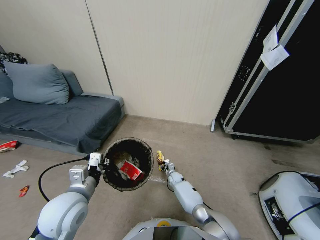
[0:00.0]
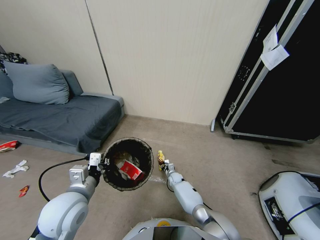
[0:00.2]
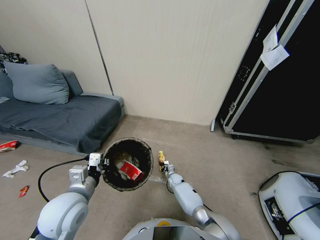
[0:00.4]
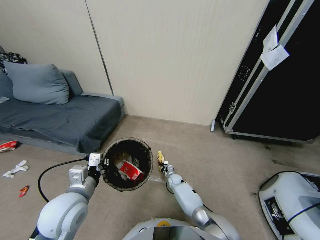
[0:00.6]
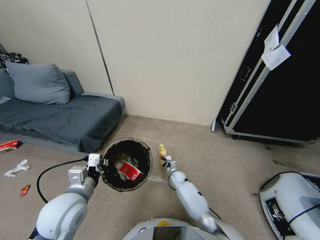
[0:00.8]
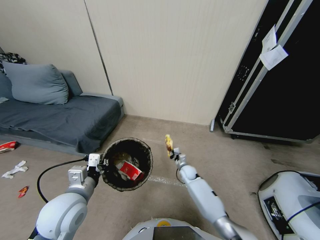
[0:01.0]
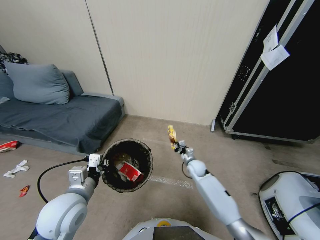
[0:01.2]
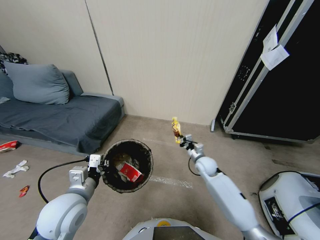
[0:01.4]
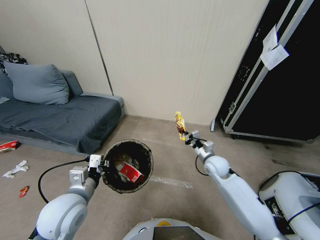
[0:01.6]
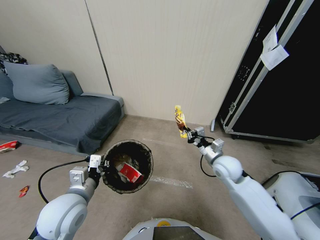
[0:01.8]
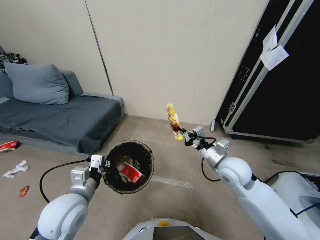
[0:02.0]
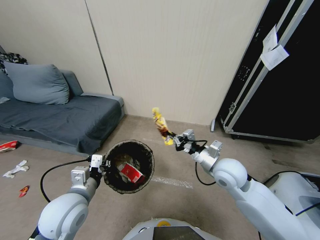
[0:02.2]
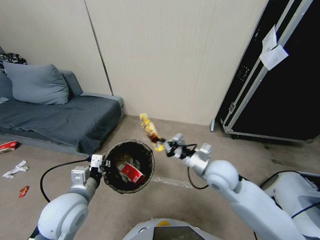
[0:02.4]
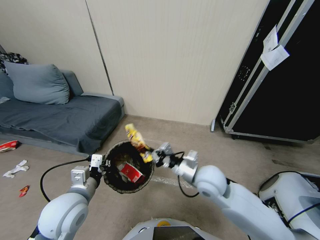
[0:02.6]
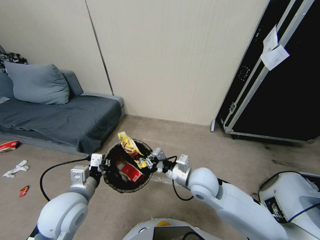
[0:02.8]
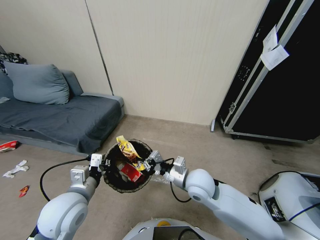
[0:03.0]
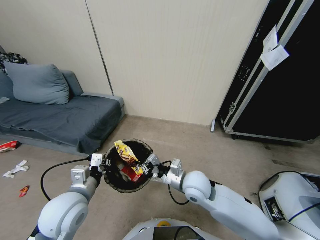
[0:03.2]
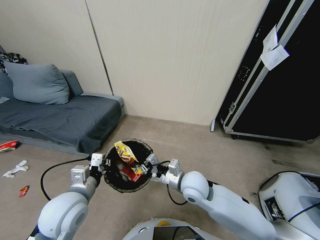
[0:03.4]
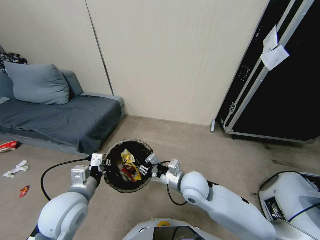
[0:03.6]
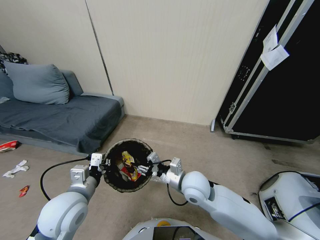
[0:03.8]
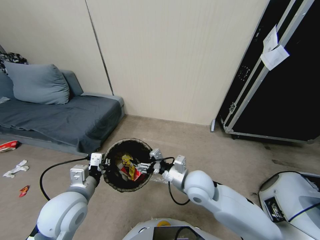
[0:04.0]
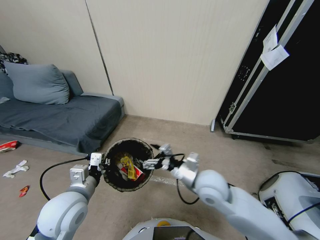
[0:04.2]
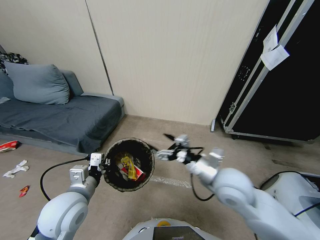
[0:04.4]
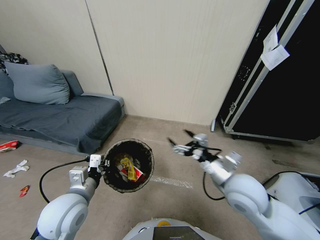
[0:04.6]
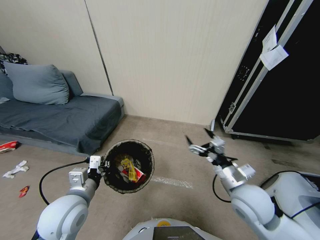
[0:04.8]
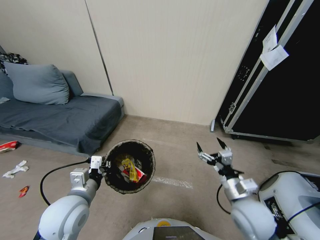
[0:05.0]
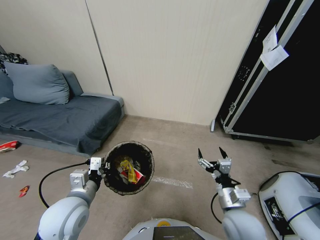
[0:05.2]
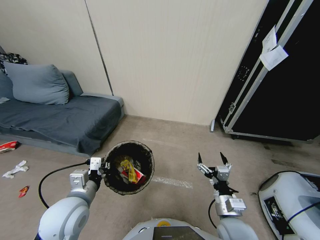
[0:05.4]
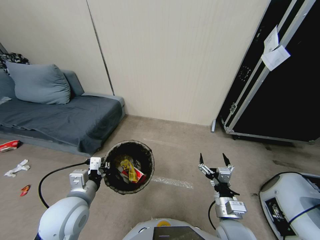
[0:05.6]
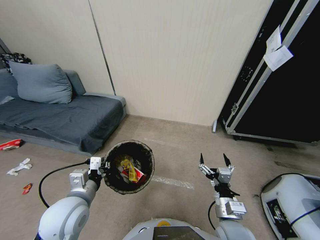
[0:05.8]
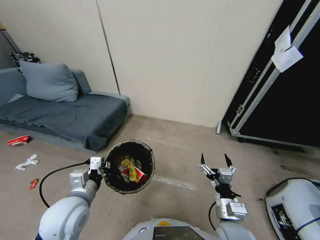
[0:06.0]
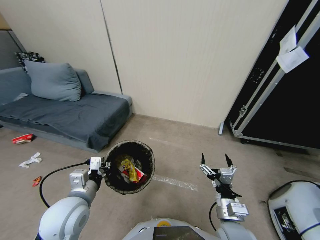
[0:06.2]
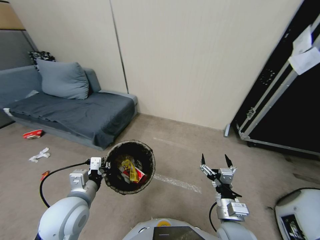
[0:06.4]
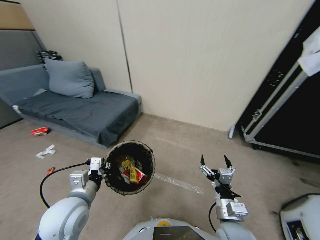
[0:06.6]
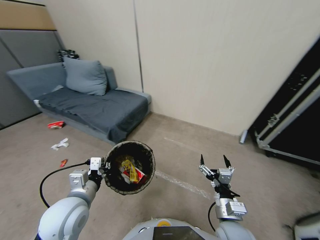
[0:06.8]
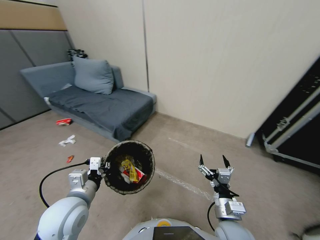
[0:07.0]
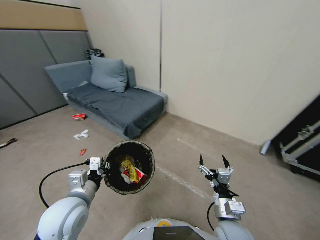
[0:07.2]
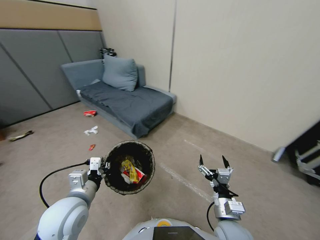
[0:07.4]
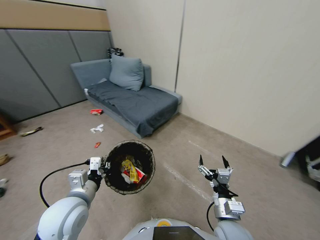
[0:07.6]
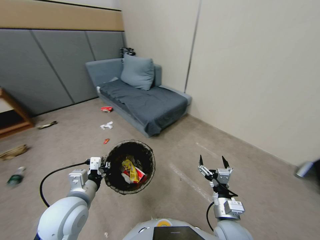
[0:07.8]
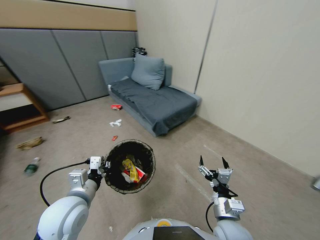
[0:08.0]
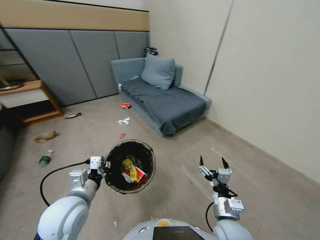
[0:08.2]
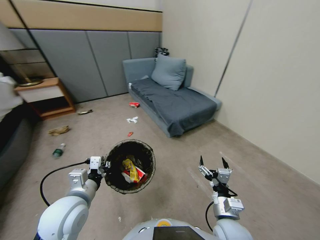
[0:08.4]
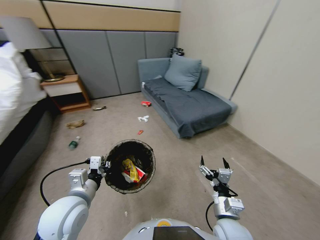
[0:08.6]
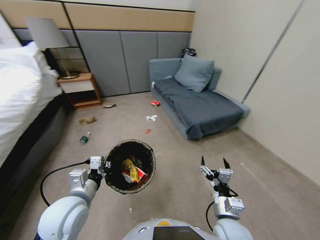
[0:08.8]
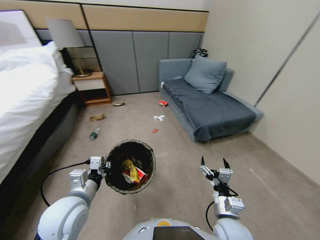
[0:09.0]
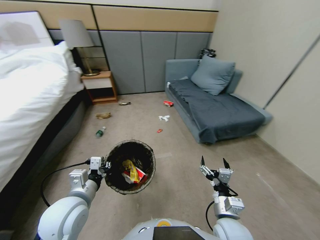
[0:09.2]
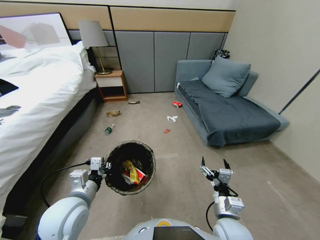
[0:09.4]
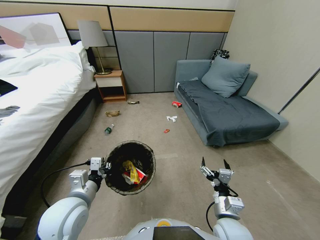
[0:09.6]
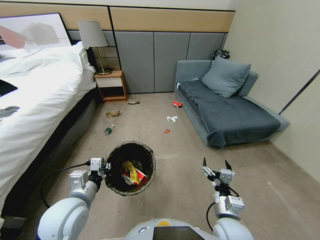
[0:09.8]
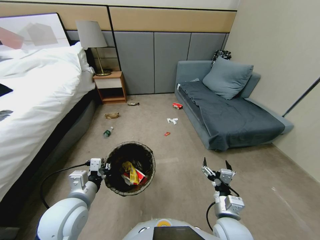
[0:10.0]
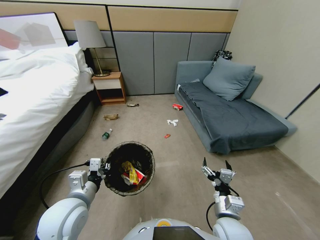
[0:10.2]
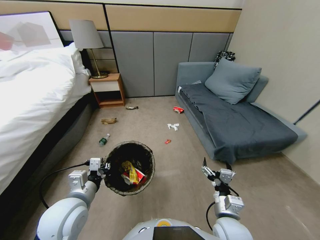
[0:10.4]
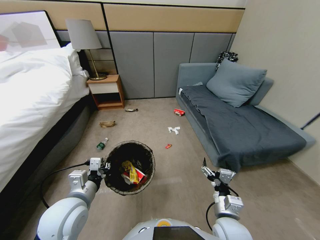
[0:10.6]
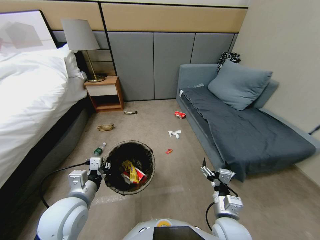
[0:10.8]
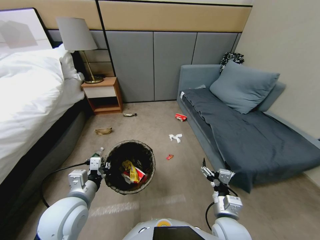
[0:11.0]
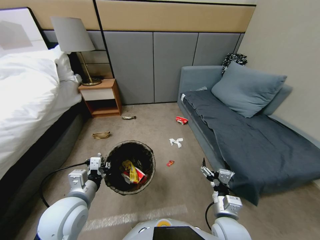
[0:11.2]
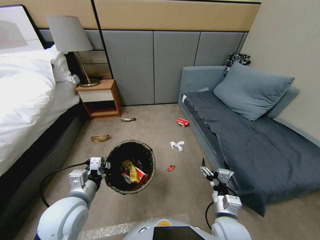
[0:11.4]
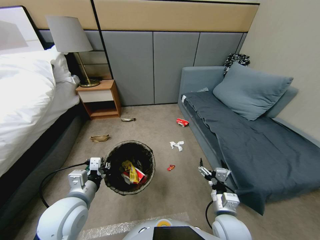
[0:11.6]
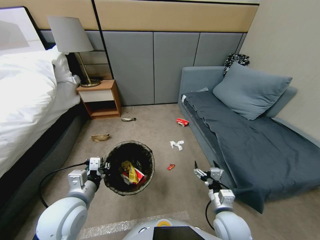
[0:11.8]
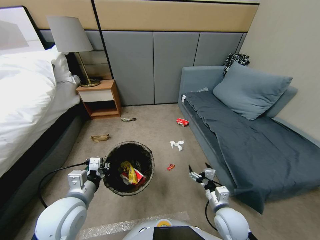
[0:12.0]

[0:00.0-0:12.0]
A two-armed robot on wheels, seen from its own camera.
Task of the whole recording: Pick up the trash bin, then pick up the garbage from the floor and place it into the trash bin.
0:00.0 to 0:01.6: The right gripper is displaced upward and to the right by roughly 35 cm, and closes.
0:01.6 to 0:03.0: The right gripper moves to the left and backward, approximately 15 cm.
0:03.0 to 0:04.4: The right gripper heads to the right and upward, covering some 10 cm, and opens.
0:04.4 to 0:06.0: The right gripper heads downward and backward, covering about 15 cm.
0:10.4 to 0:12.0: The right gripper moves downward, about 5 cm.

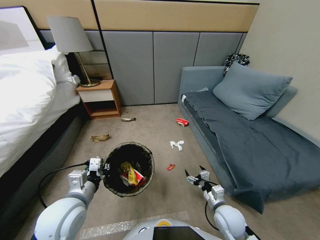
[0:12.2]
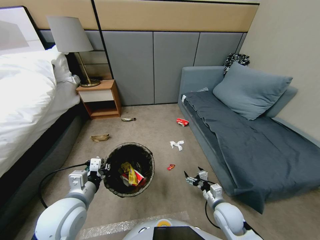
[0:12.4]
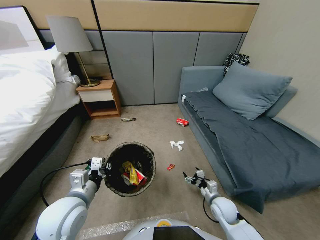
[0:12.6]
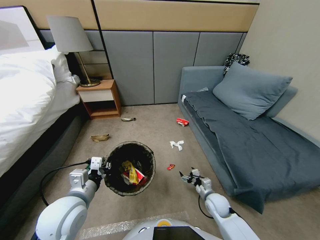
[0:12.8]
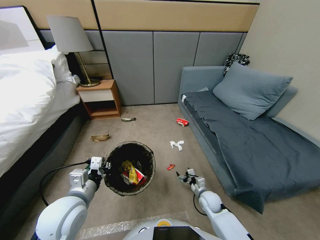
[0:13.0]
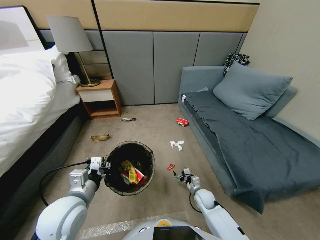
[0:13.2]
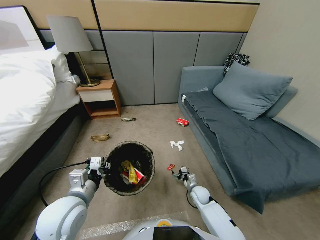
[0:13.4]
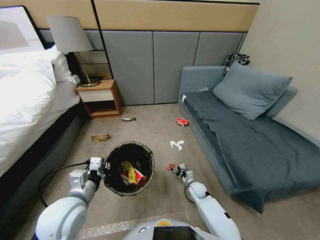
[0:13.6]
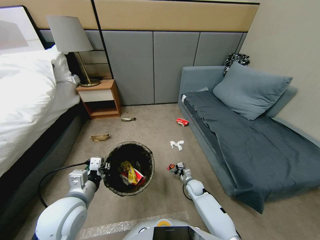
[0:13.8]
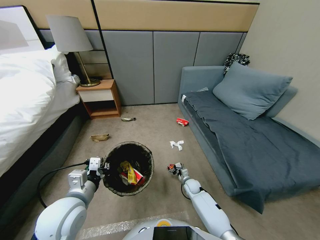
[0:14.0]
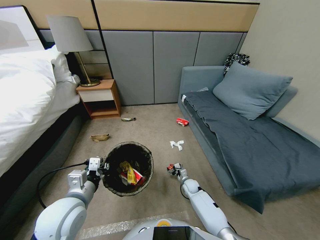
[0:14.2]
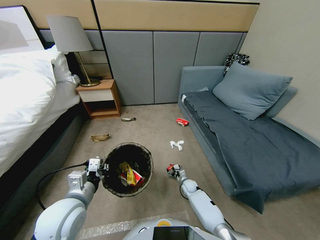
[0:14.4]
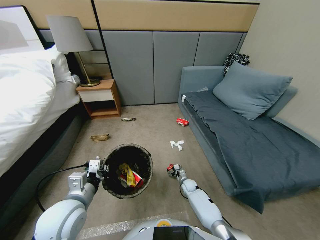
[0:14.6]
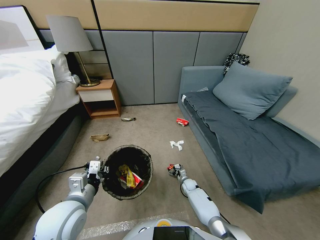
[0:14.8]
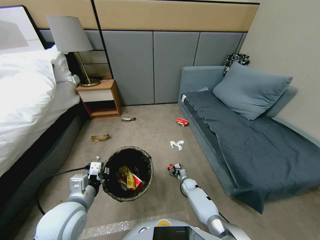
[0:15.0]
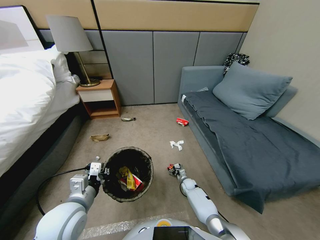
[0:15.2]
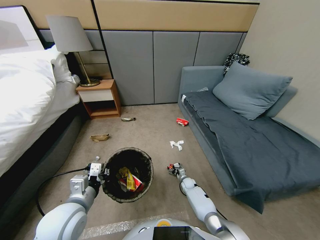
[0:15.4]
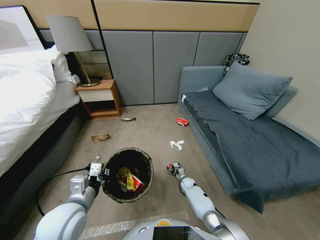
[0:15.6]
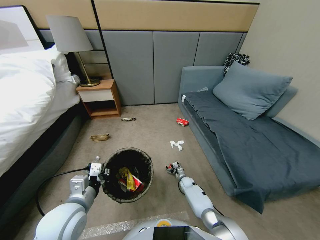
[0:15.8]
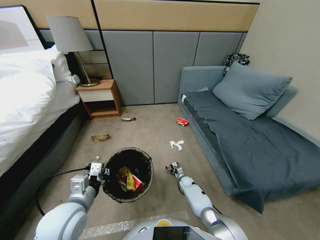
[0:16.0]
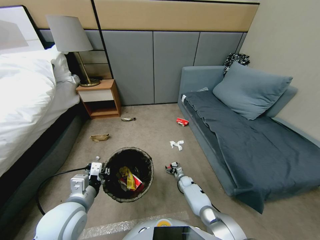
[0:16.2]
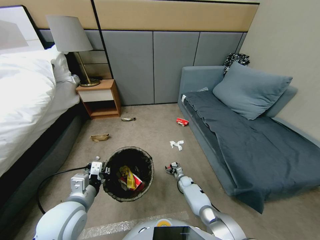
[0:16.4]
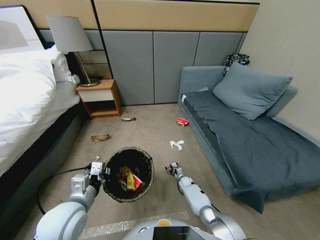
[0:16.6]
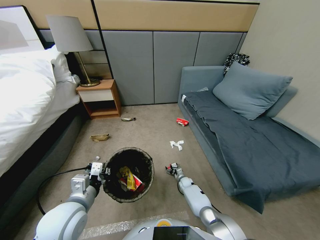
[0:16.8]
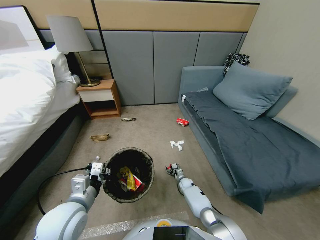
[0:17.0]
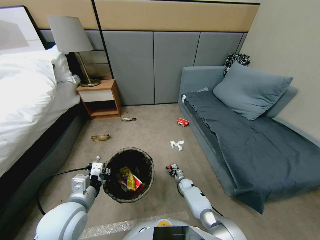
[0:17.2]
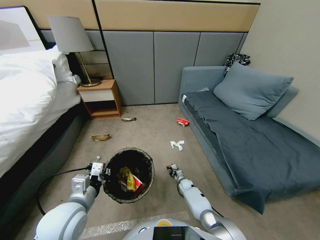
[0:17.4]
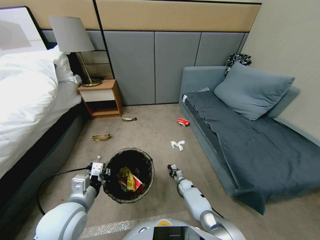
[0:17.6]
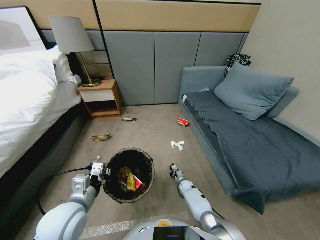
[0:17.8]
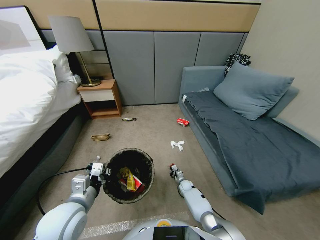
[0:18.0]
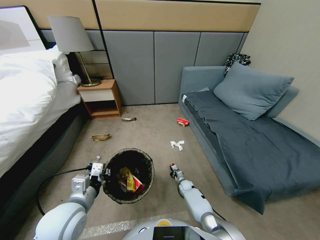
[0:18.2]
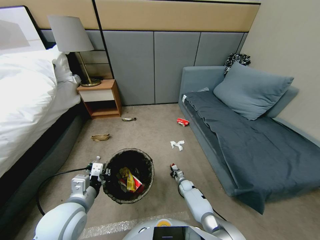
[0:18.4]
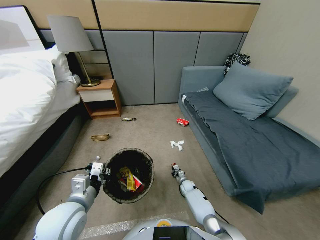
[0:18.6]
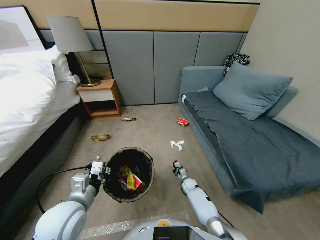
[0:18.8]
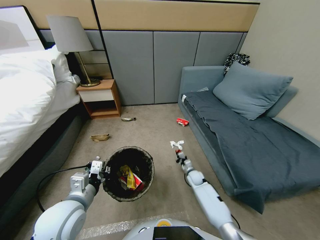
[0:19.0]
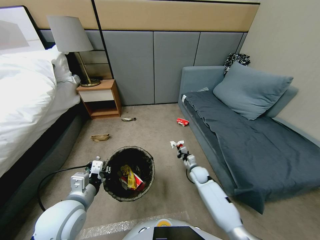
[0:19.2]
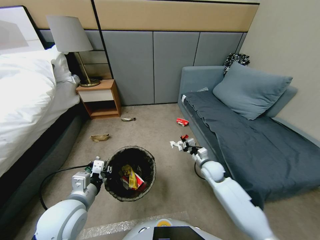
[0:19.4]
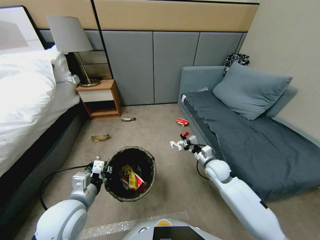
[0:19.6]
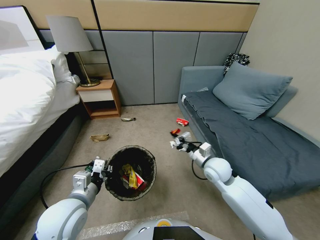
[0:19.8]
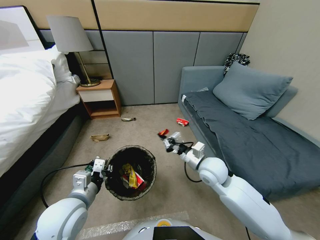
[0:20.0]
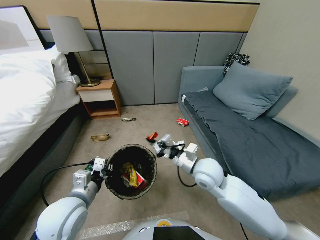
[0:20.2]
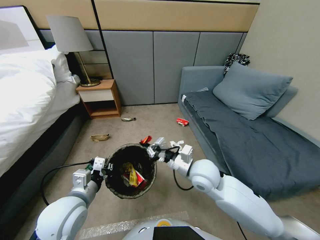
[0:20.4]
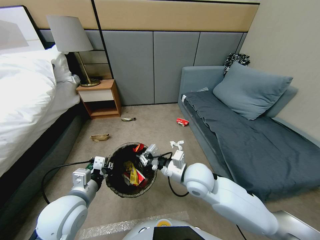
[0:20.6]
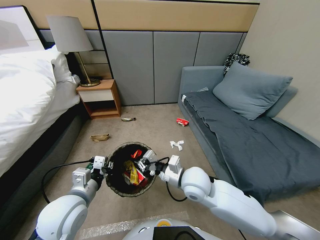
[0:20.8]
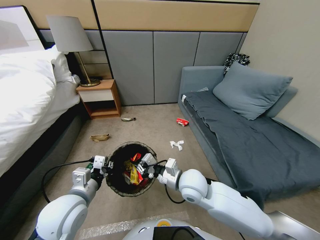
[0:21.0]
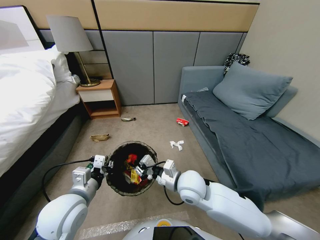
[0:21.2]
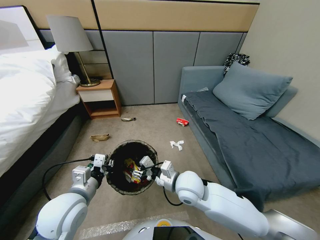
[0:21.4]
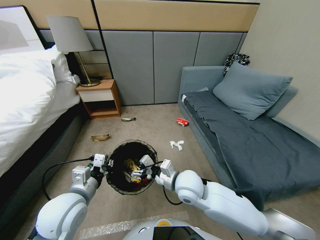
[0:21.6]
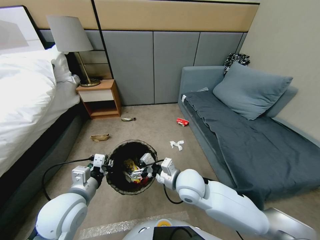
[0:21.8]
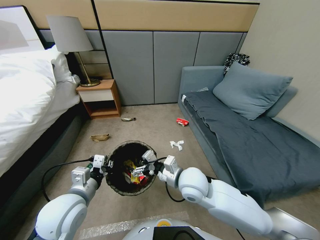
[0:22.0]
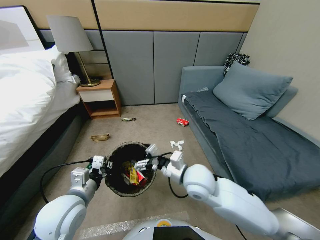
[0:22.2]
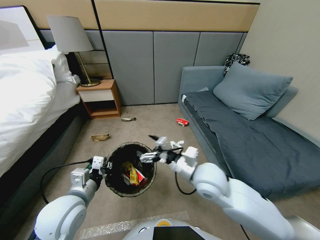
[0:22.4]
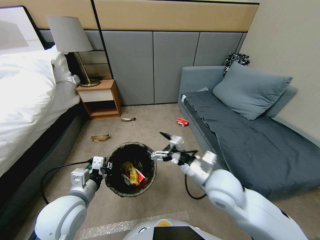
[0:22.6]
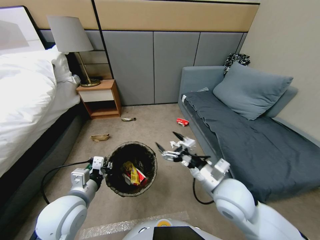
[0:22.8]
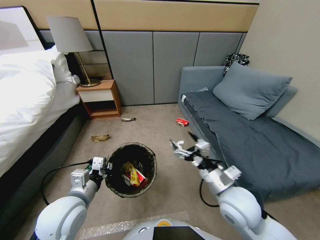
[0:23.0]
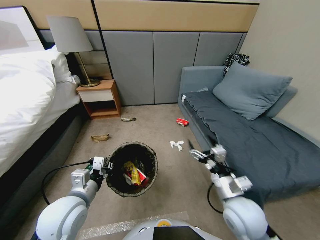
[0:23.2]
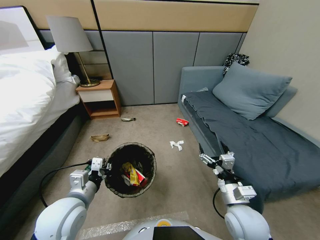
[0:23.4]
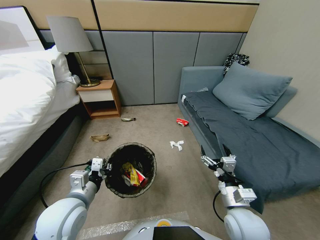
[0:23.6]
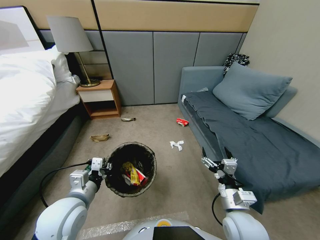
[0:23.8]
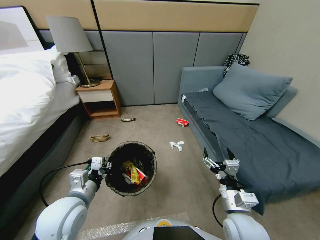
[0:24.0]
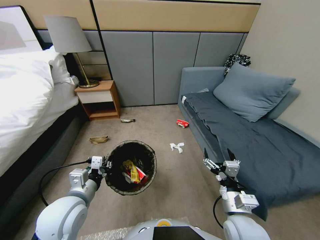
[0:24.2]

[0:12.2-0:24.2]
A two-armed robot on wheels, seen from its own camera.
Task of the whole recording: Pick up the trash bin, then pick up the garbage from the floor and place it into the trash bin.
0:12.2 to 0:13.8: The right gripper goes some 25 cm forward and downward.
0:13.8 to 0:15.2: The right gripper shifts roughly 5 cm downward.
0:15.2 to 0:16.6: The grippers stay close to where they were, moving slightly.
0:16.6 to 0:18.2: The right gripper closes its fingers.
0:18.2 to 0:19.8: The right gripper is displaced upward by approximately 40 cm.
0:19.8 to 0:21.2: The right gripper heads to the left and backward, covering approximately 10 cm, and opens.
0:21.2 to 0:22.6: The right gripper goes about 10 cm to the right and upward, and opens.
0:22.6 to 0:24.2: The right gripper moves backward and downward, approximately 10 cm.
